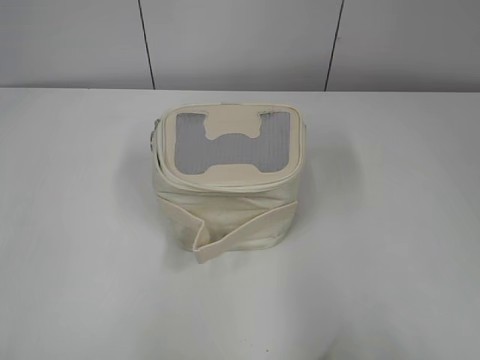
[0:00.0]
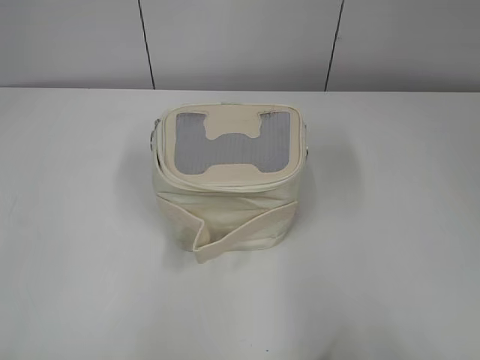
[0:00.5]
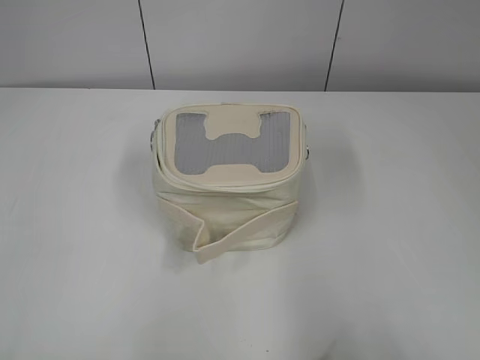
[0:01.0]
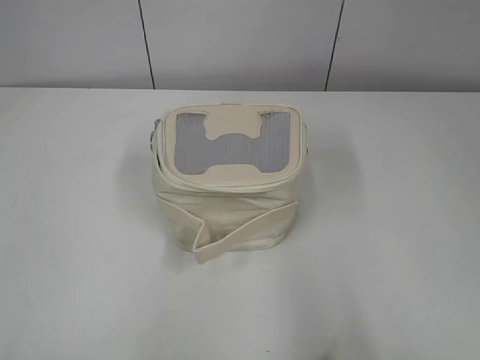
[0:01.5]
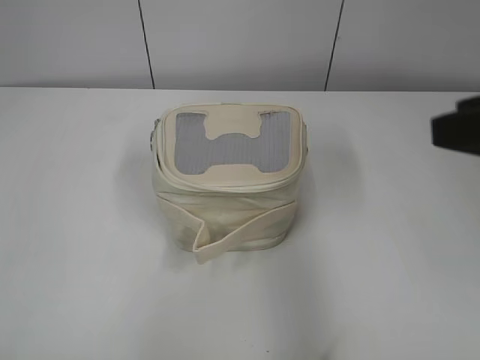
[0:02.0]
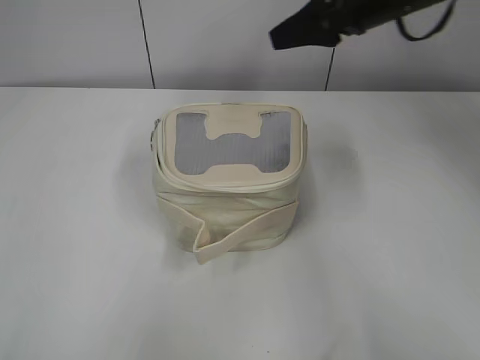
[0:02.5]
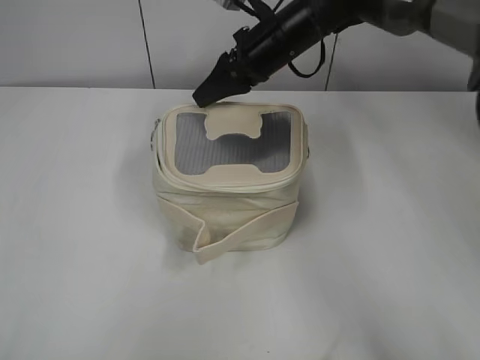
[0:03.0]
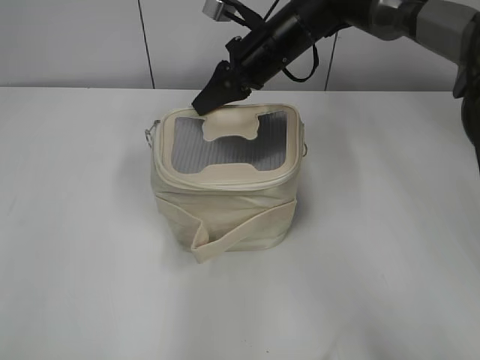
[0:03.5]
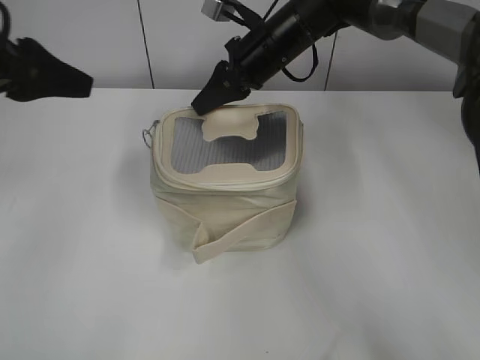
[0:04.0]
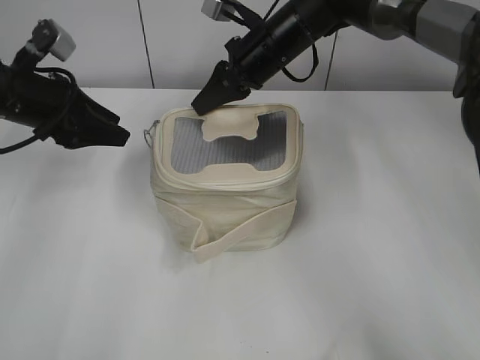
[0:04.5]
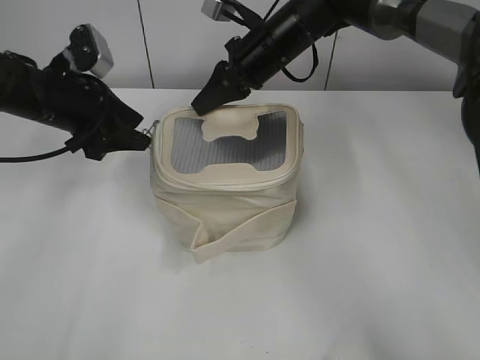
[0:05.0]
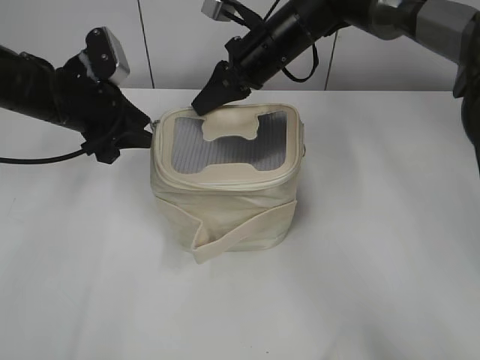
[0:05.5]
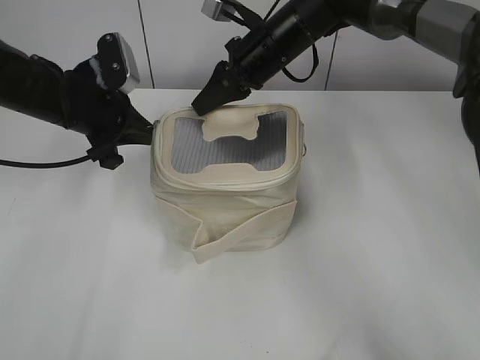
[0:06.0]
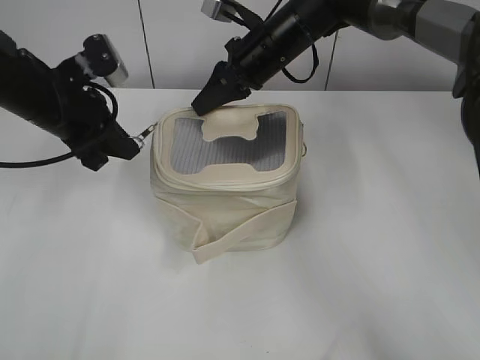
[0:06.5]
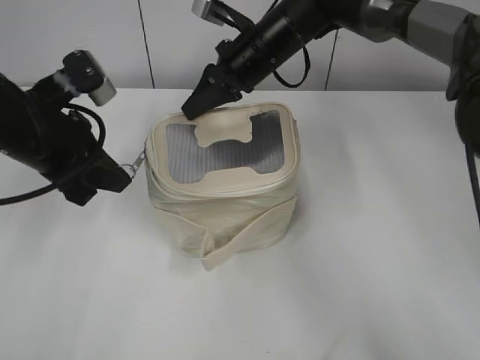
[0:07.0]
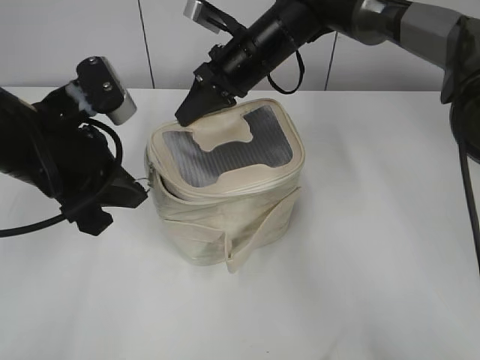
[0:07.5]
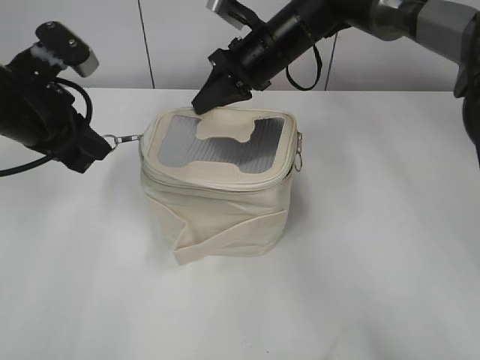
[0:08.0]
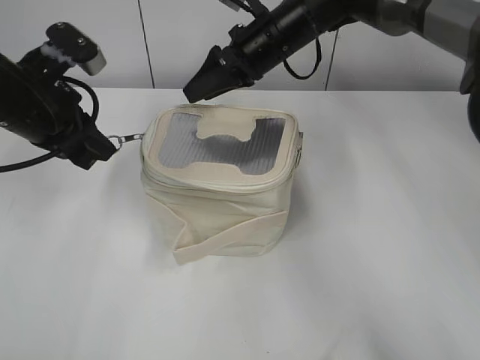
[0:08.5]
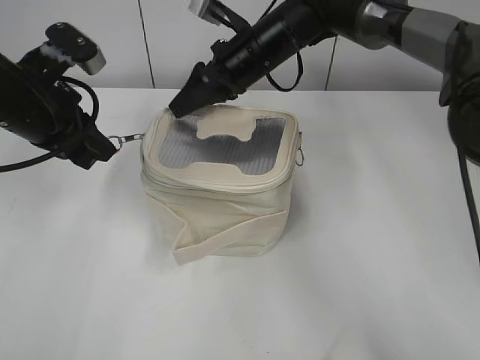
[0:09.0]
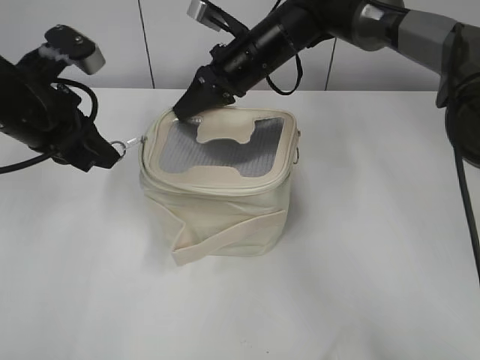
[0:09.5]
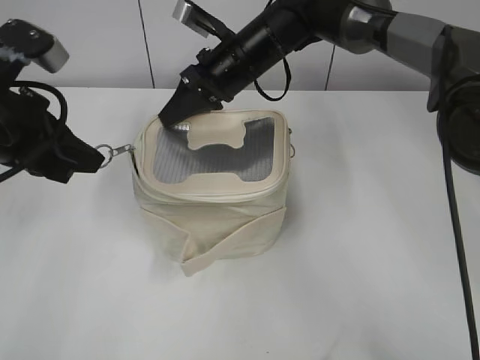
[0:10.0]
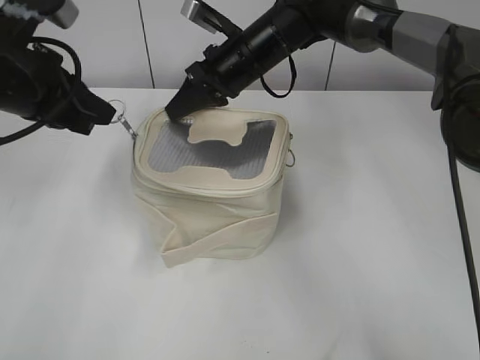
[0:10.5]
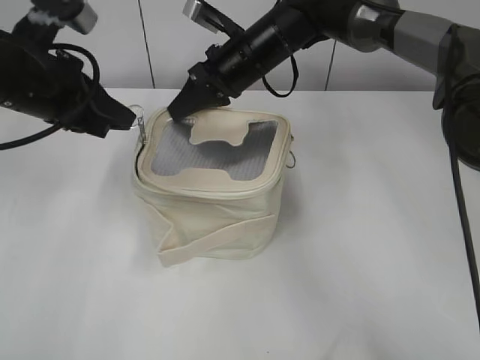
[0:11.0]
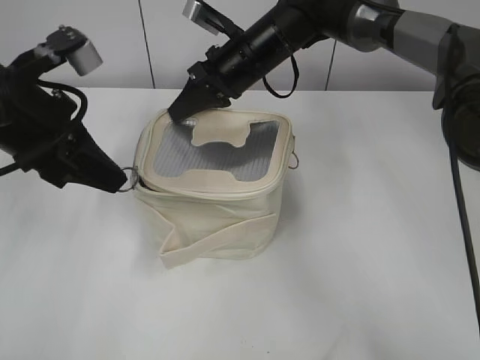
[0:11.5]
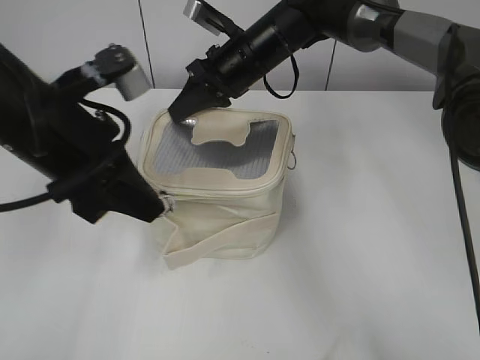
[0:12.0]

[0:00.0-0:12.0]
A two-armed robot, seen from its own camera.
0:02.0 to 0:04.0: The left gripper shifts roughly 25 cm forward, and opens its fingers; the right gripper shifts some 40 cm forward and to the left, and closes its fingers.
0:04.0 to 0:06.0: The left gripper moves downward, forward and to the right, some 15 cm, and closes up.
0:06.0 to 0:08.0: The left gripper moves backward, roughly 10 cm.
0:08.0 to 0:10.0: The right gripper opens, then closes once more.

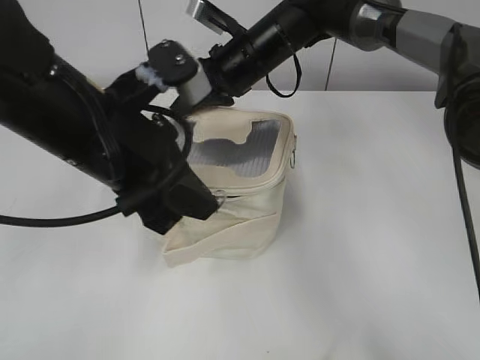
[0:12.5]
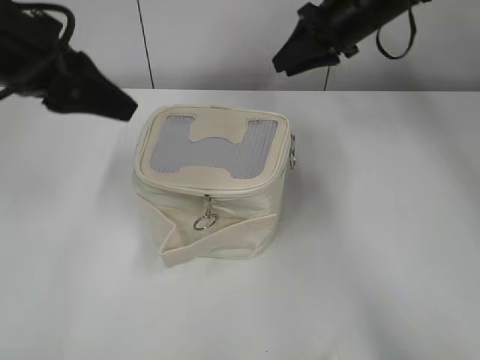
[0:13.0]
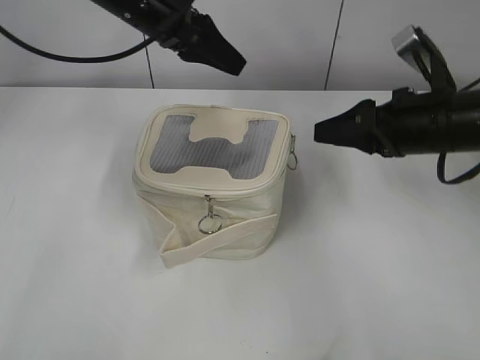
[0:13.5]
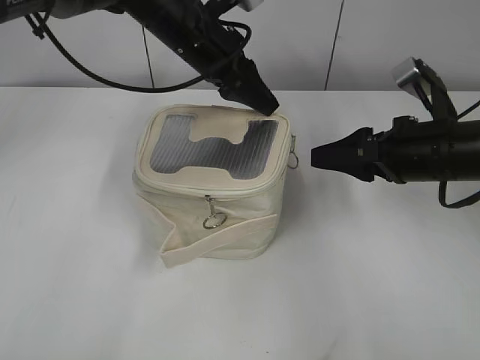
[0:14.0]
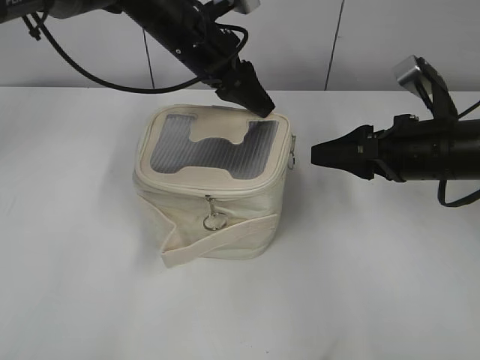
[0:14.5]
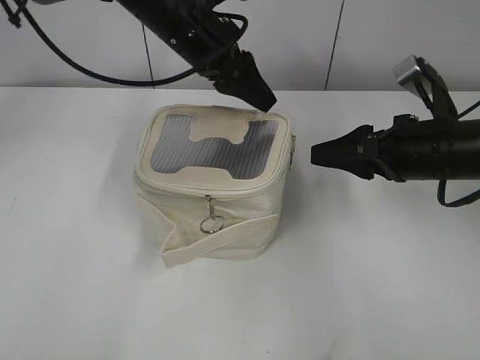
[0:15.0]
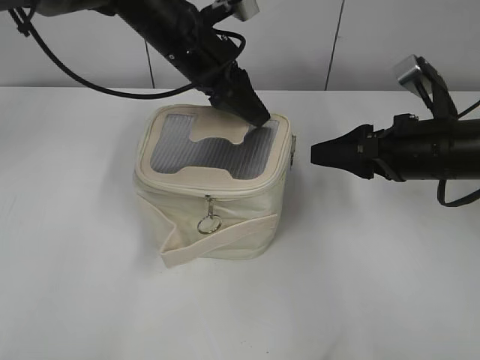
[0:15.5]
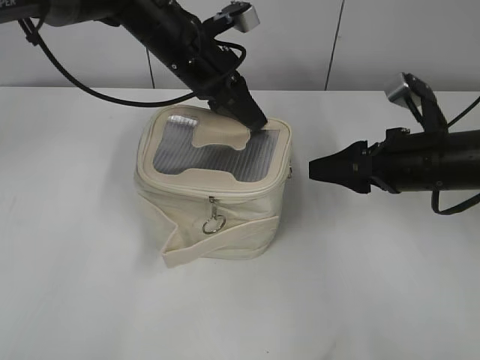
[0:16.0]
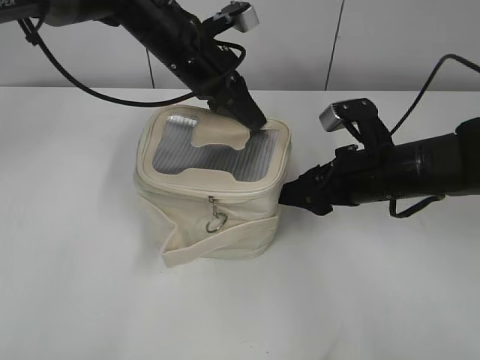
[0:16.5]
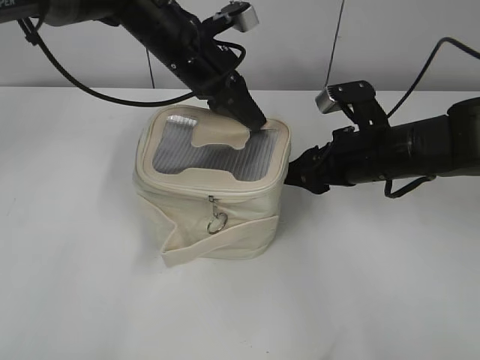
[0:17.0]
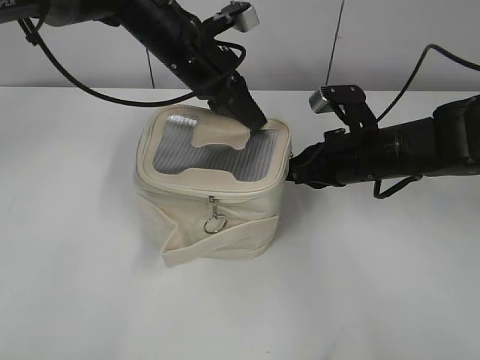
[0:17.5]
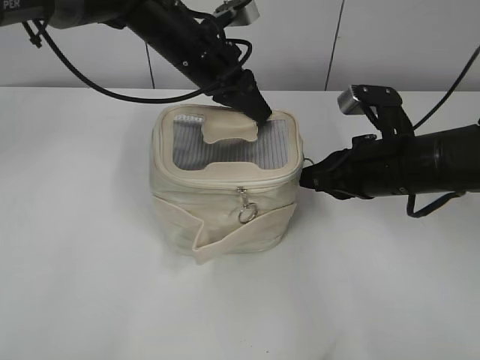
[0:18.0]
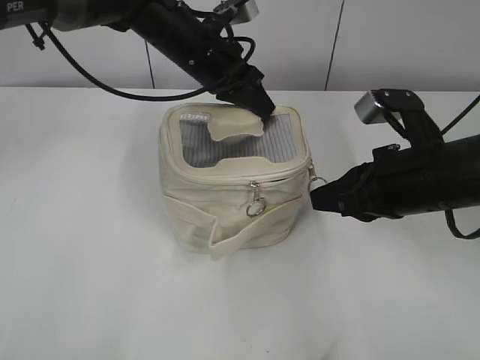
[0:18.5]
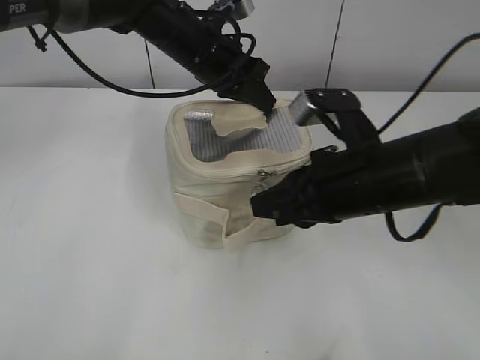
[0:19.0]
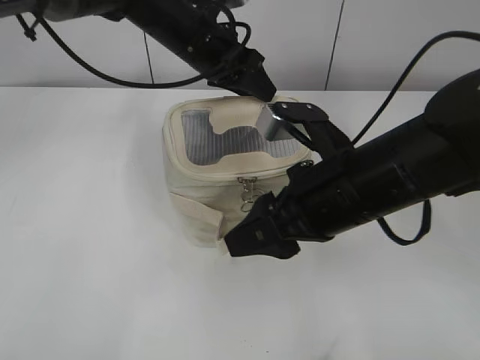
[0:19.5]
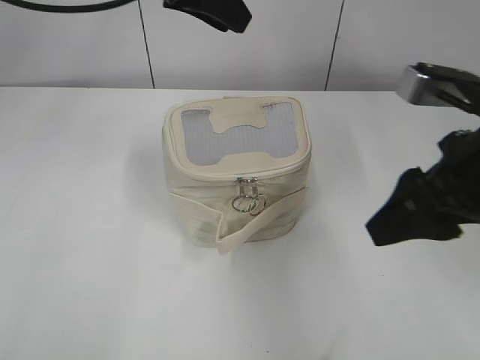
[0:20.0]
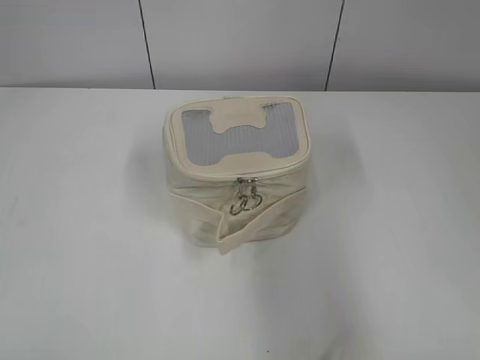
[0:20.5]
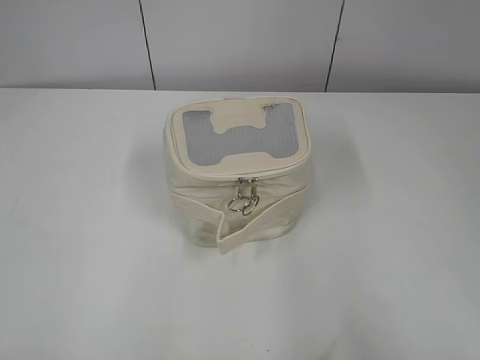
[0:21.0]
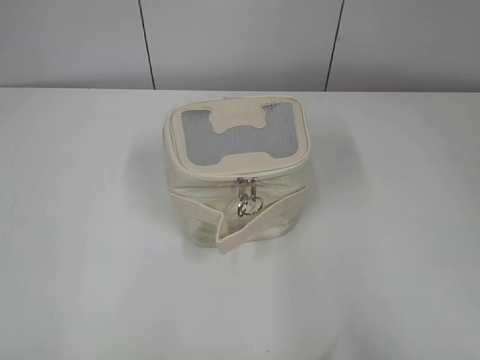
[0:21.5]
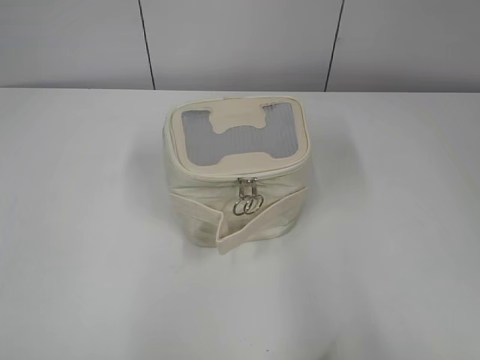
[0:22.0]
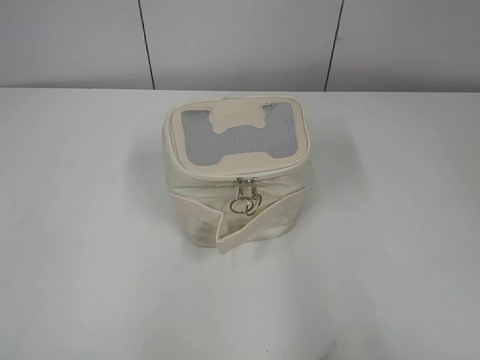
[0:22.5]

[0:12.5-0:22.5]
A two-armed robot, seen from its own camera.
Step, 0:13.0 to 0:19.0: Zip up the bag with your right hand.
0:12.5 to 0:14.5: The right gripper travels to the right and backward by approximately 25 cm, and opens up. Meanwhile the left gripper moves forward, approximately 20 cm, and opens its fingers.
0:14.5 to 0:16.5: The right gripper changes place by about 5 cm, while the left gripper closes its fingers.
0:16.5 to 0:18.5: The right gripper moves some 5 cm, and closes.
0:18.5 to 0:20.5: The right gripper travels backward and upward by approximately 20 cm, and opens its fingers. Meanwhile the left gripper moves backward, to the left and upward, approximately 40 cm, and opens.
0:20.5 to 0:22.5: The right gripper goes some 10 cm backward; the left gripper heads backward, to the left and downward, covering approximately 20 cm.

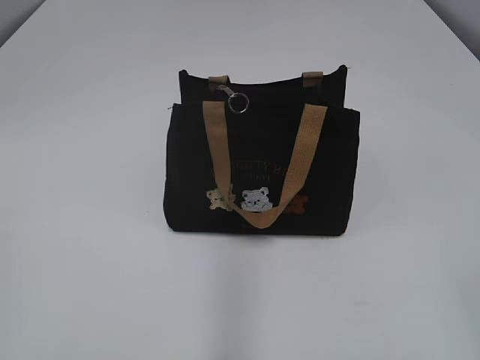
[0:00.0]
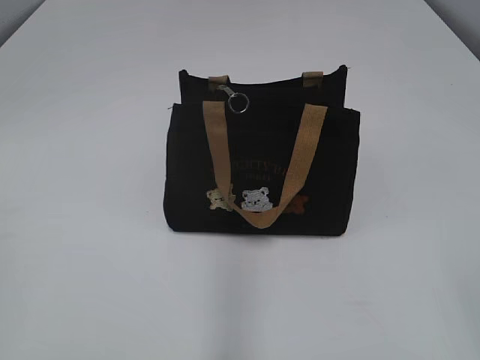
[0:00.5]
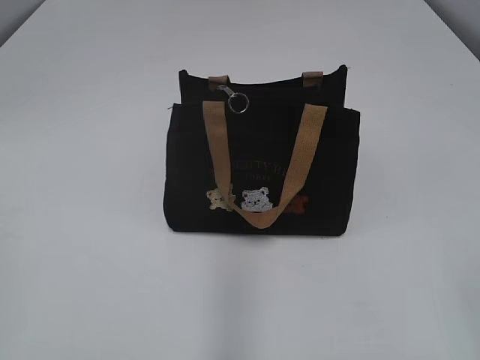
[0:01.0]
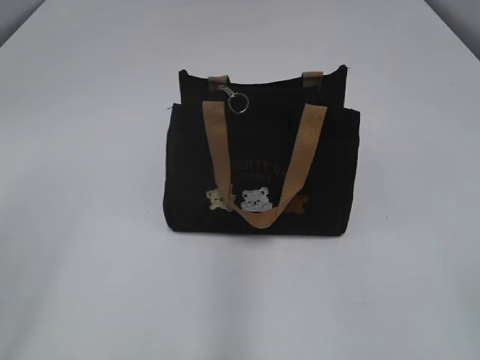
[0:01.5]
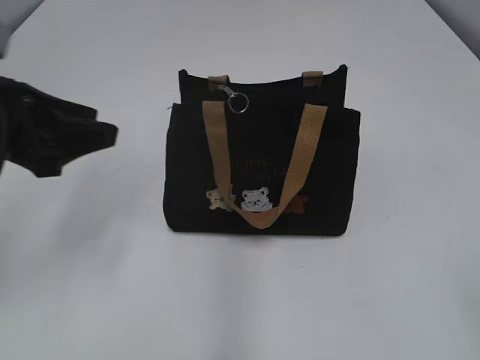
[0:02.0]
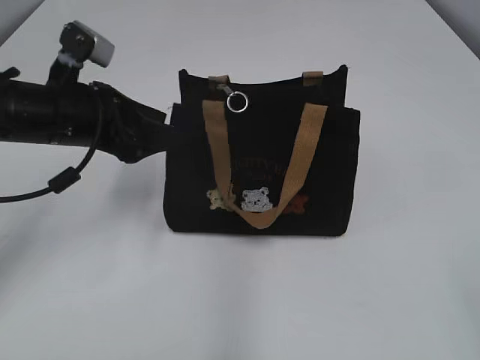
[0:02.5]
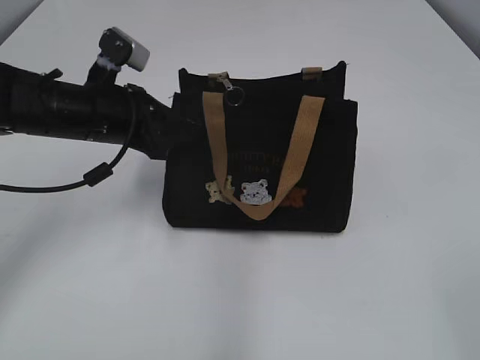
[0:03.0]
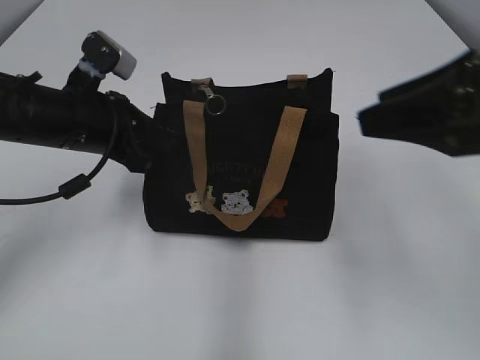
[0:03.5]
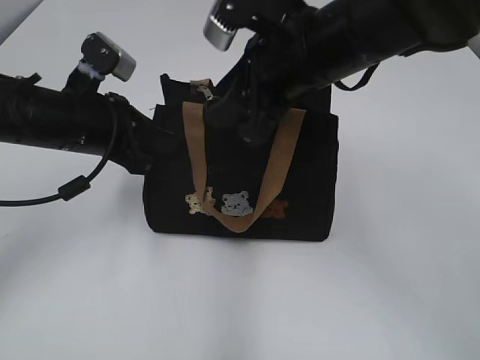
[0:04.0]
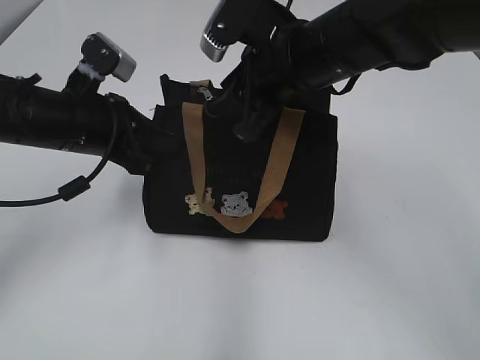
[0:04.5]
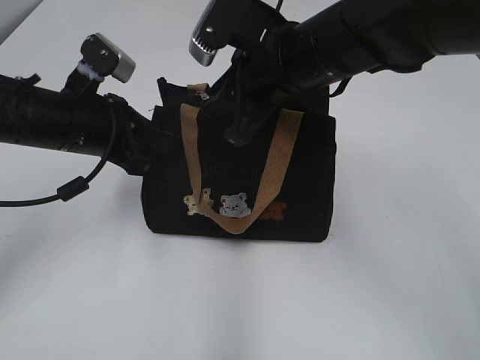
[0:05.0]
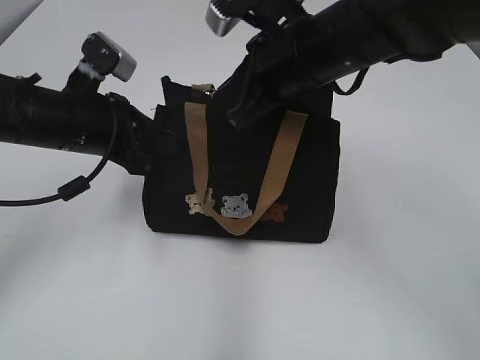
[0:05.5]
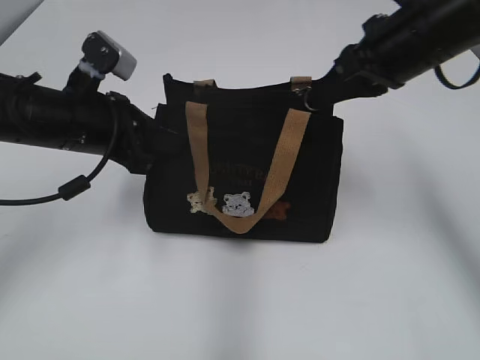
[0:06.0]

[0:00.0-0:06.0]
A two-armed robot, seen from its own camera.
0:02.0 to 0:04.0: The right gripper shifts approximately 35 cm forward and to the left; the left gripper moves forward, to the right and downward, approximately 15 cm, and closes.
0:04.0 to 0:06.0: The right gripper goes about 5 cm forward, and closes up.
